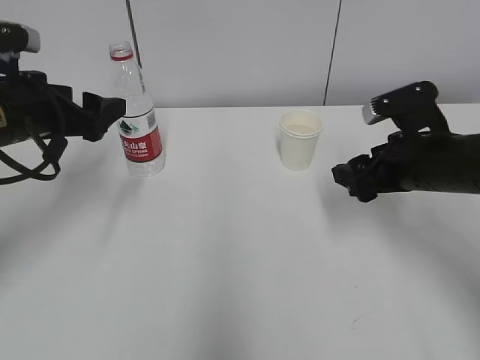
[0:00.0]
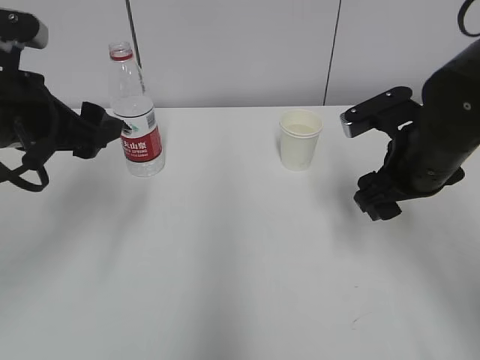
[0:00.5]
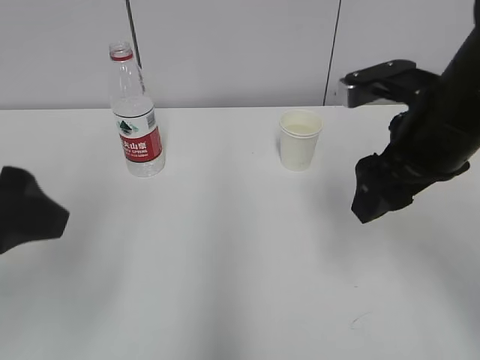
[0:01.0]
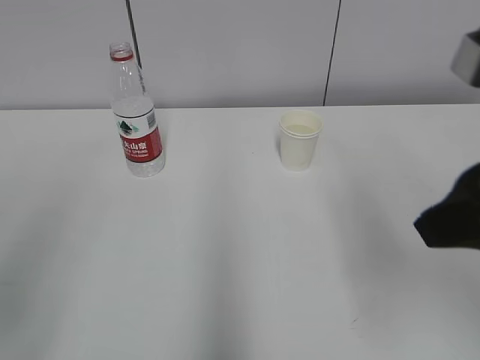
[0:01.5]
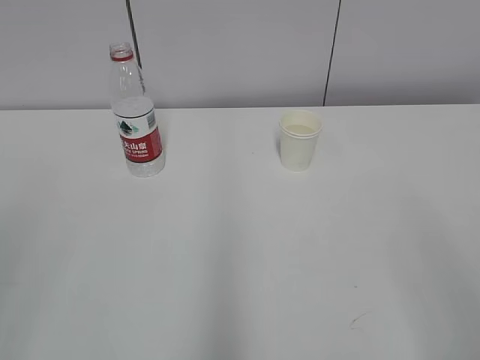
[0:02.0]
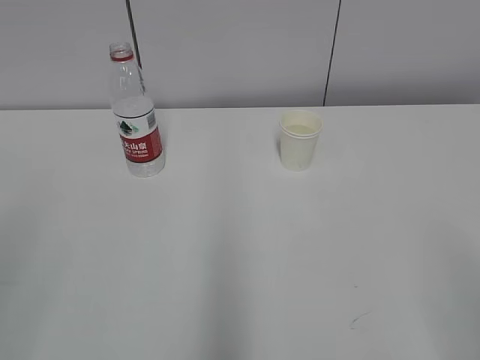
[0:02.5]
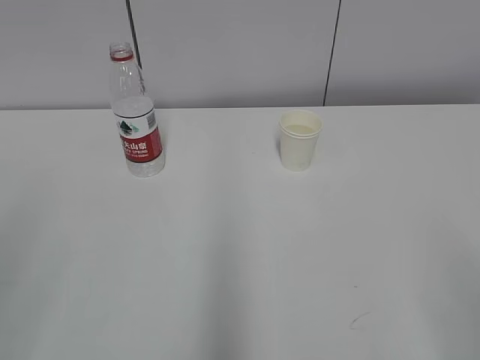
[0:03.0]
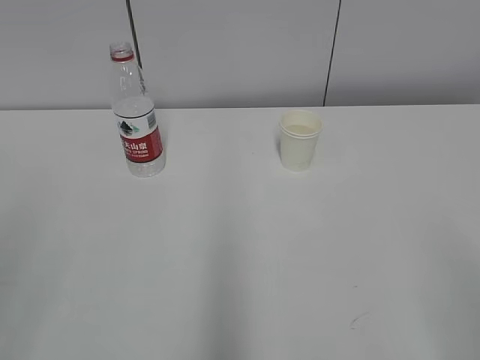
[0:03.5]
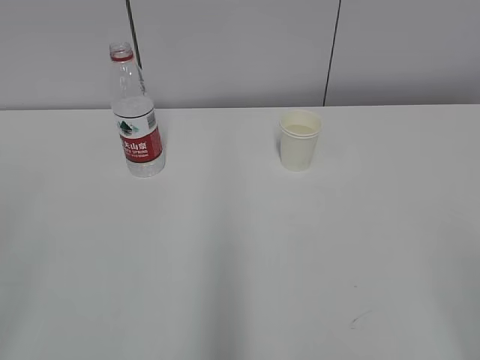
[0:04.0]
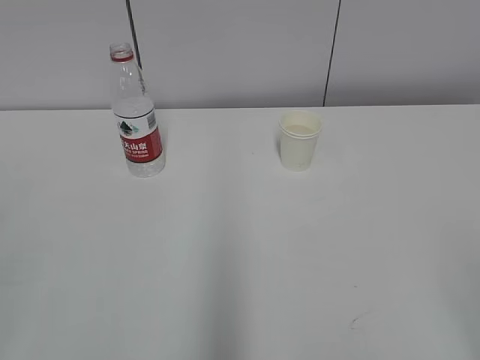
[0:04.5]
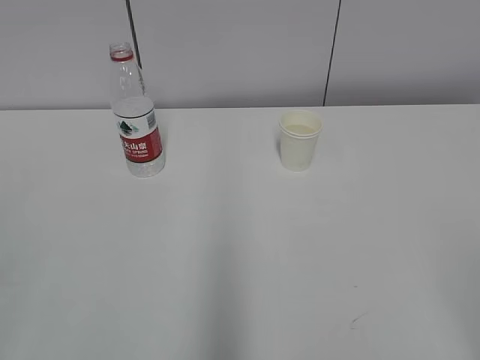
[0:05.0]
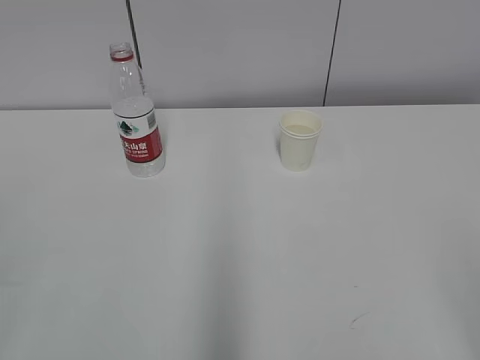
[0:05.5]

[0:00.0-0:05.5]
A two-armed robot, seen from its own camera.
0:00.0 to 0:02.0: The left gripper goes roughly 30 cm backward; the right gripper shifts some 30 cm backward and upward.

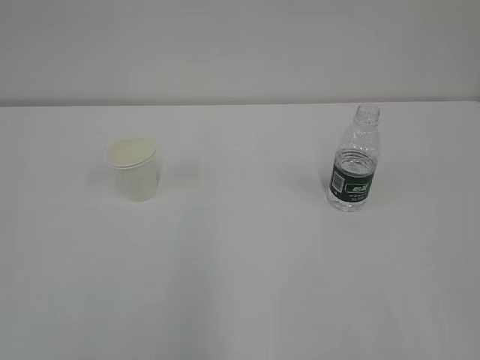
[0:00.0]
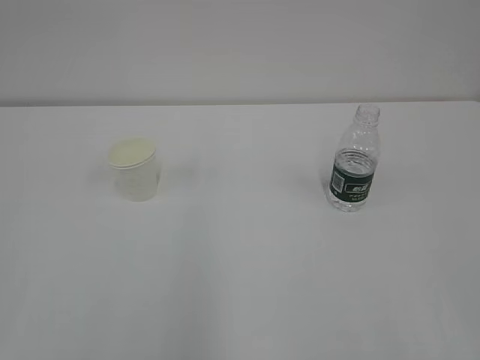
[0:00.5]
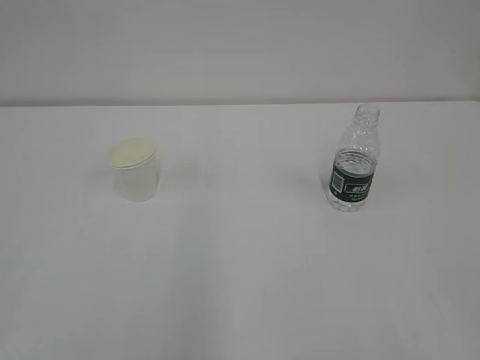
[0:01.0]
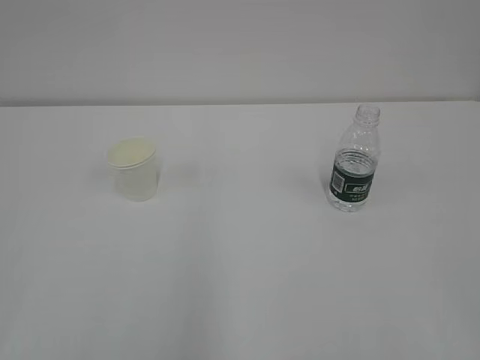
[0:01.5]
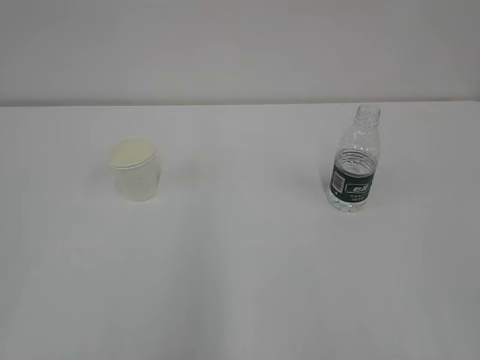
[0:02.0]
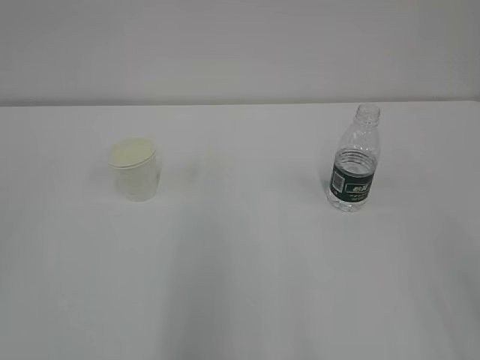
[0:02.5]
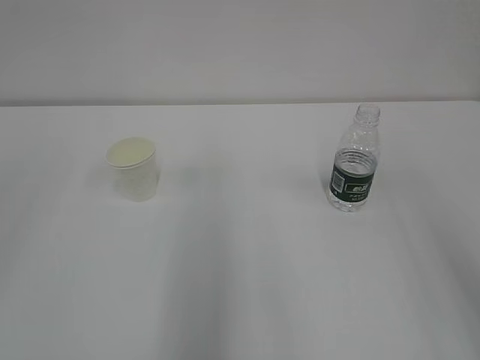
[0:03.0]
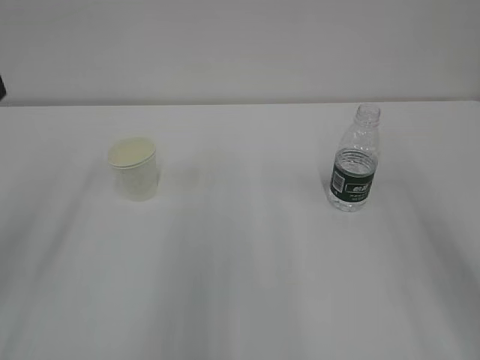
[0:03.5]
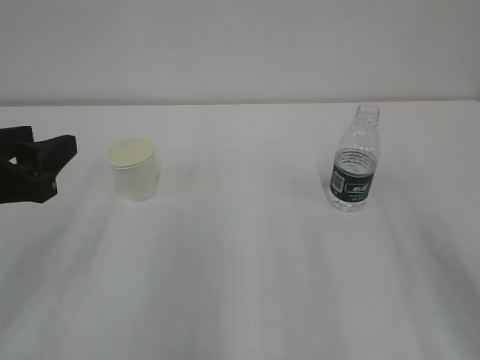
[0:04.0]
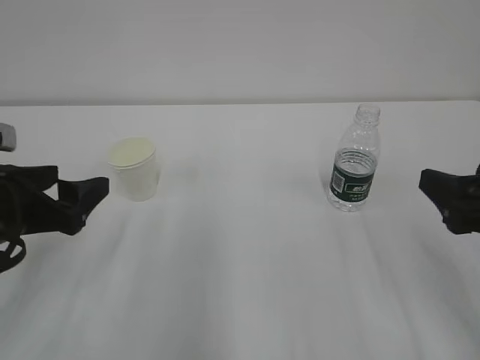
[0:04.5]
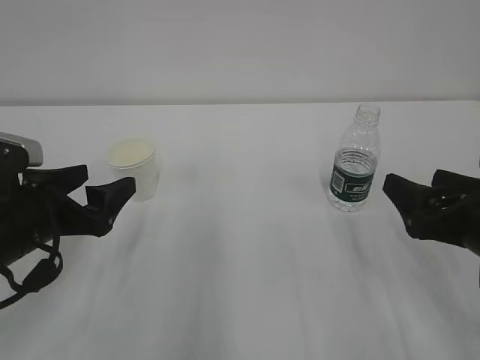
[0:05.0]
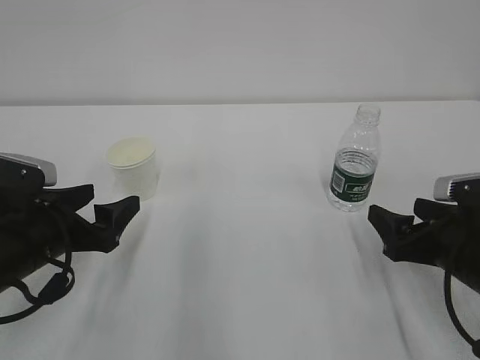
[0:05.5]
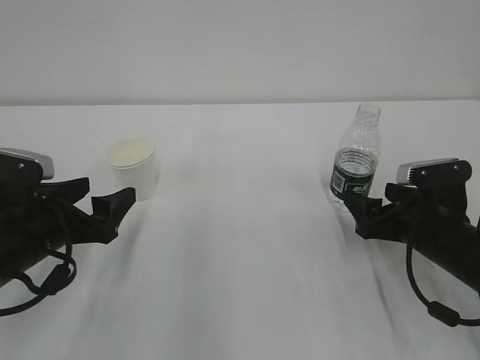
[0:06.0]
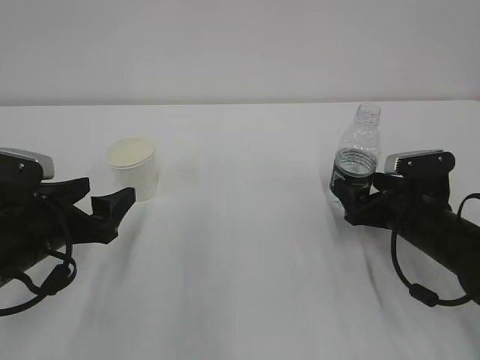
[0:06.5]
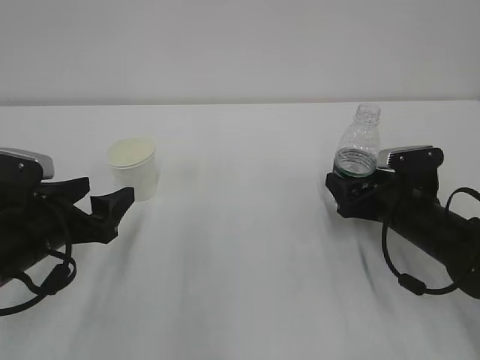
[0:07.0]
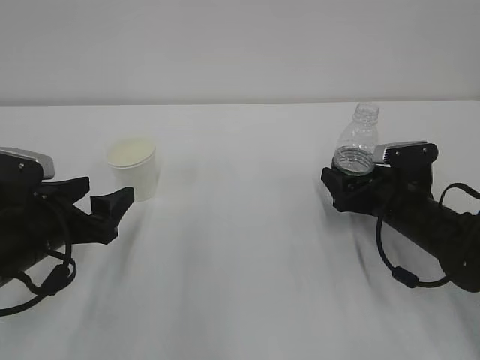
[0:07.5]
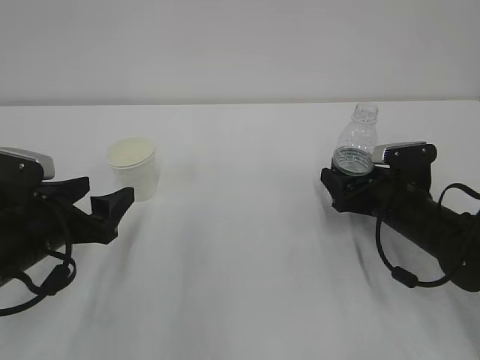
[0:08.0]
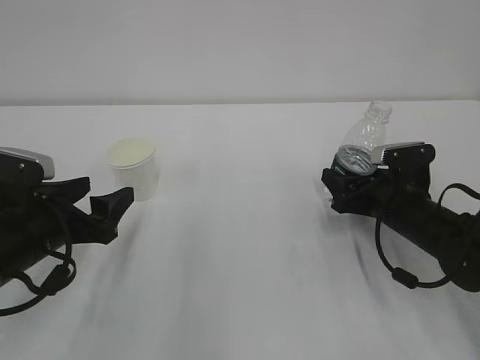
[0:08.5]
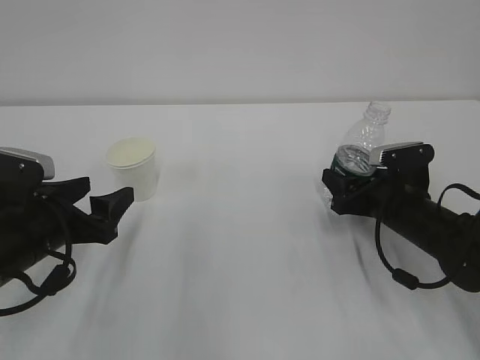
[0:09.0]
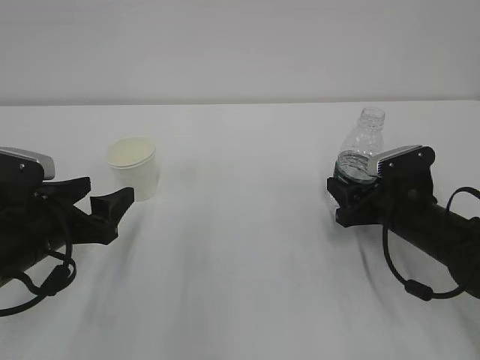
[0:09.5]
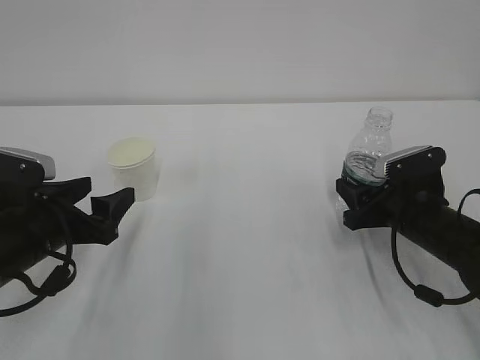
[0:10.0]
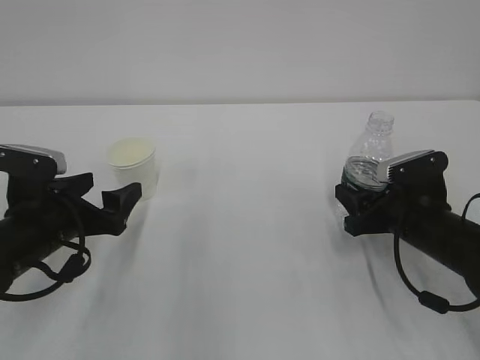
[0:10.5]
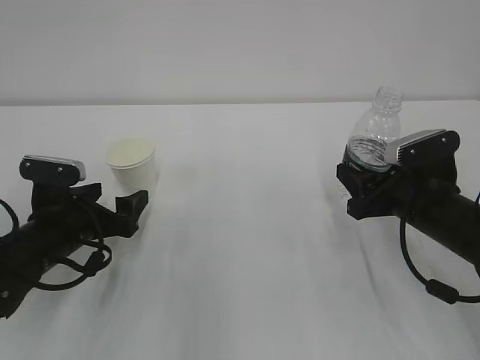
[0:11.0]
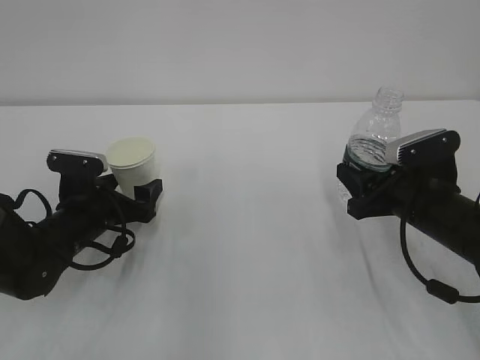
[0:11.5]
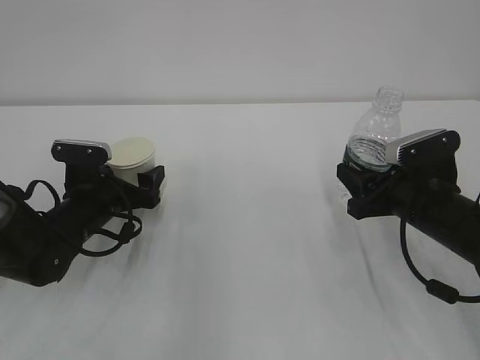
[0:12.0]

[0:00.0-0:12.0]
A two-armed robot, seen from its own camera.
0:02.0 to 0:04.0: The left gripper goes about 25 cm forward and downward.
0:04.0 to 0:06.0: The left gripper shifts roughly 10 cm downward, and opens up. The right gripper is displaced downward and forward by approximately 20 cm, and opens up.
0:06.0 to 0:08.0: The right gripper heads forward, covering about 5 cm.
0:08.0 to 0:10.0: The right gripper closes its fingers.
0:10.0 to 0:12.0: The left gripper moves forward and downward, approximately 10 cm.

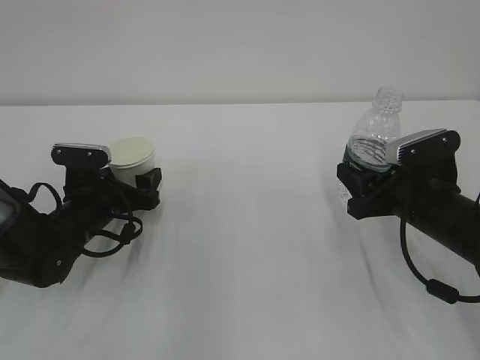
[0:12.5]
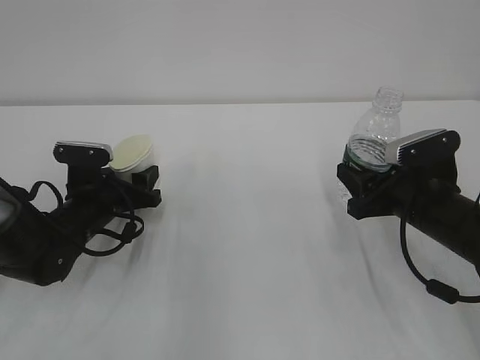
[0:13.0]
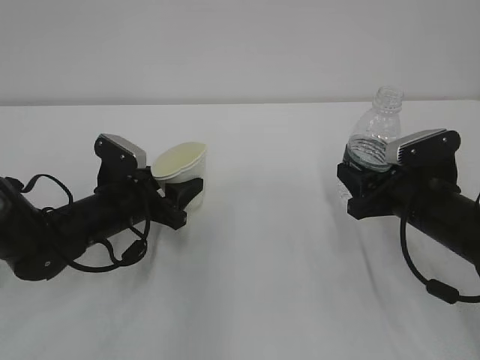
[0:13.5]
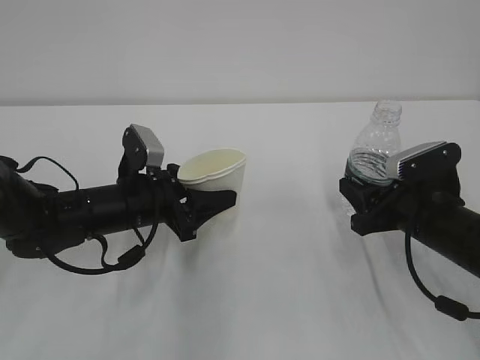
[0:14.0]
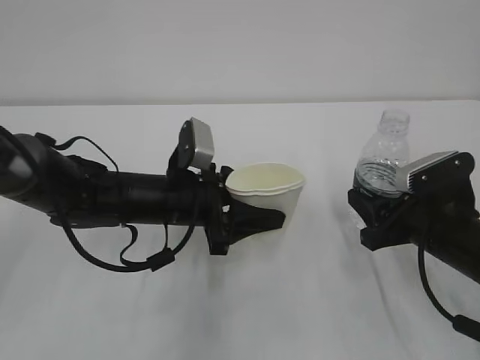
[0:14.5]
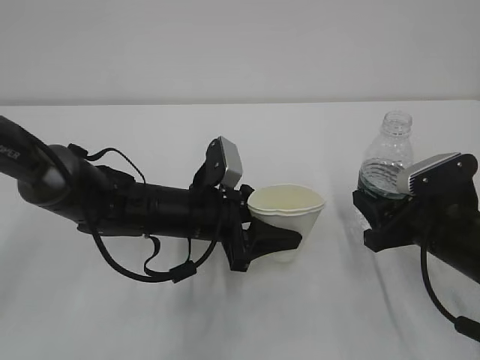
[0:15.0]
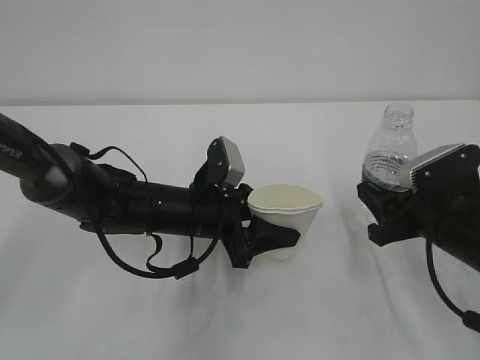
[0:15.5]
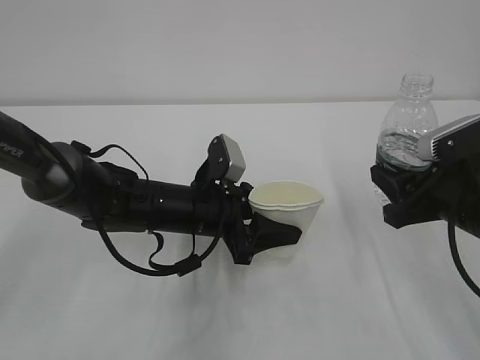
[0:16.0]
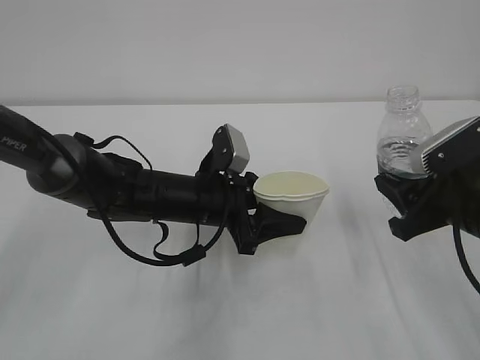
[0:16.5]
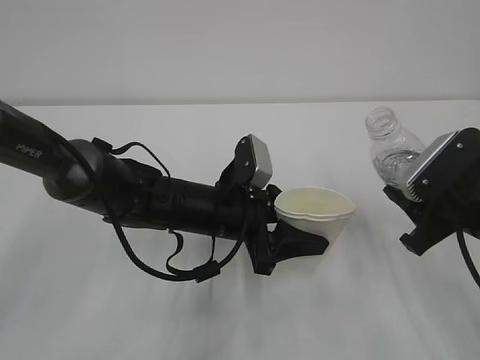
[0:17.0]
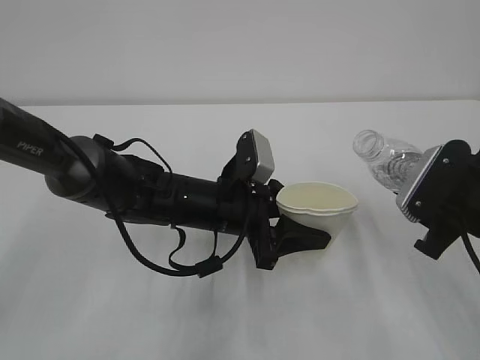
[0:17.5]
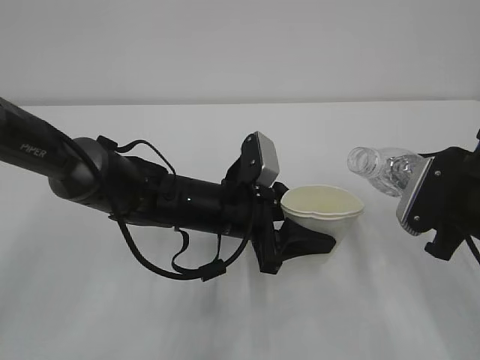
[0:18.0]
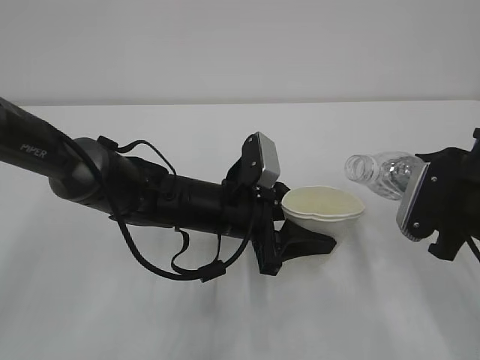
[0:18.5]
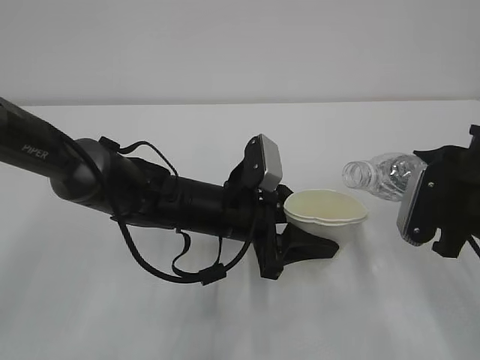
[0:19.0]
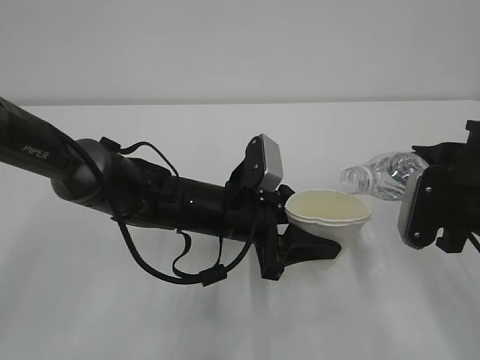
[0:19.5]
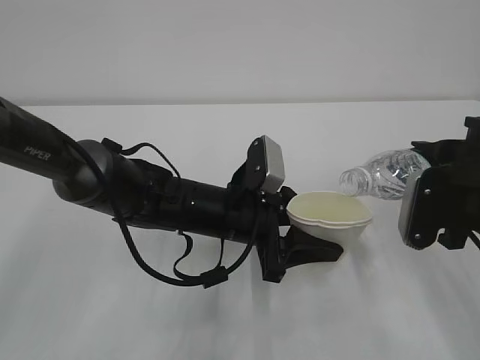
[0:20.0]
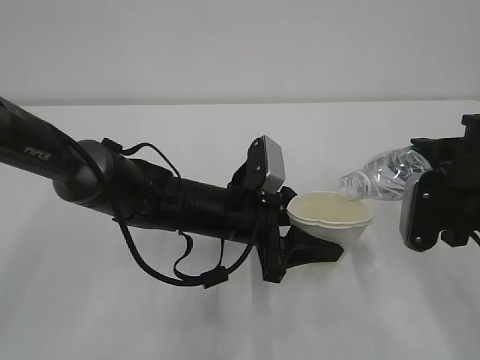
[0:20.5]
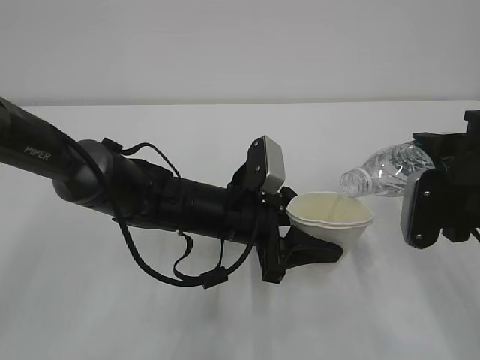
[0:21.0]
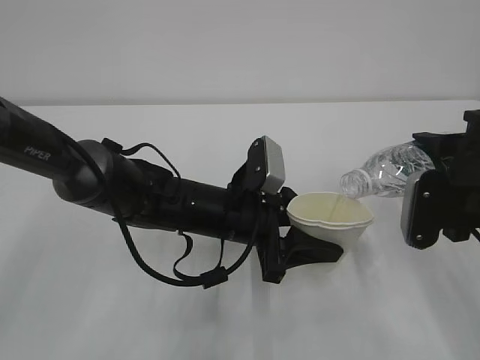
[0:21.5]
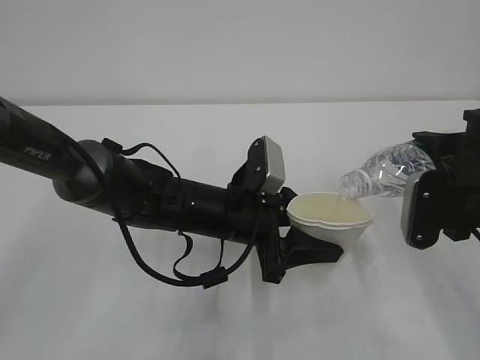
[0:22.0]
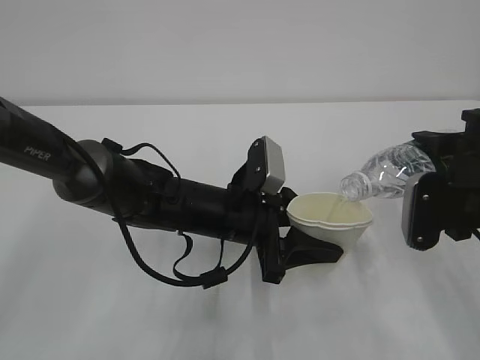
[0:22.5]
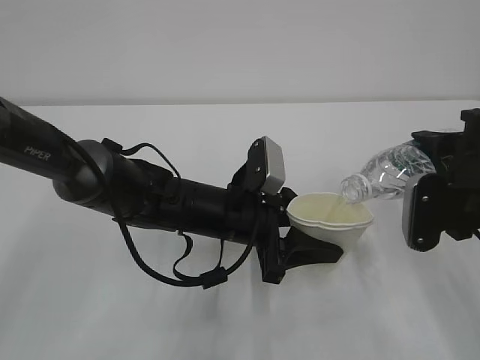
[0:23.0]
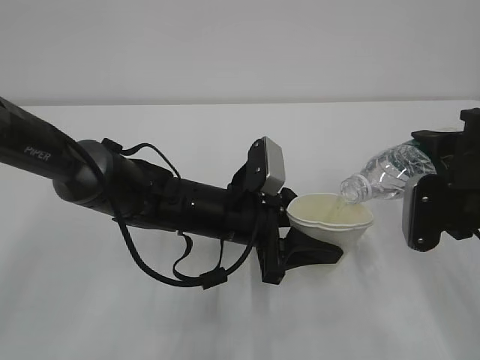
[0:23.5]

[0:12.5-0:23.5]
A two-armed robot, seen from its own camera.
0:12.5 to 0:14.5: The left gripper shifts about 15 cm to the right and upward, and closes.
0:14.5 to 0:16.0: The right gripper moves upward, some 5 cm.
0:18.0 to 0:20.0: The grippers move only a little.
0:20.0 to 0:21.5: The grippers move only a little.
0:21.5 to 0:23.5: Both grippers stay about where they are.
